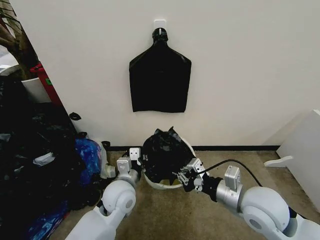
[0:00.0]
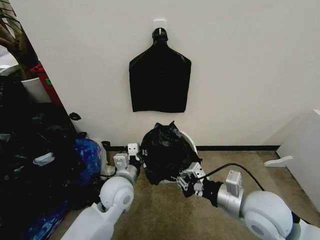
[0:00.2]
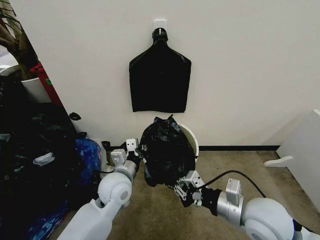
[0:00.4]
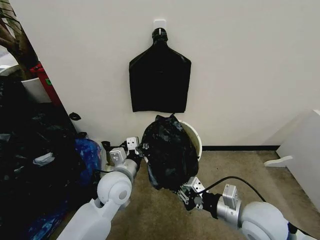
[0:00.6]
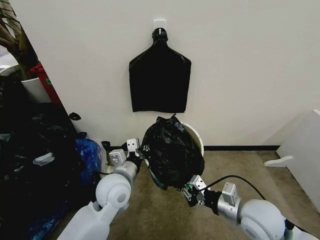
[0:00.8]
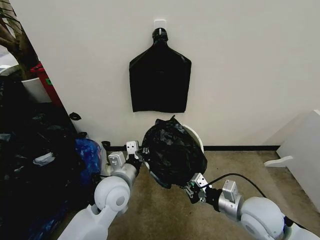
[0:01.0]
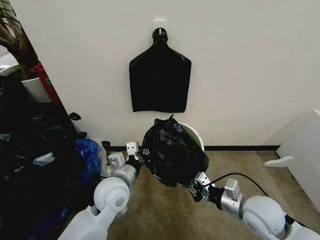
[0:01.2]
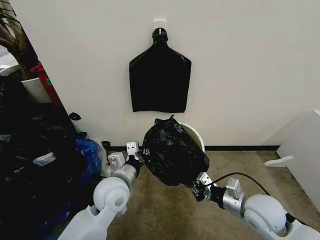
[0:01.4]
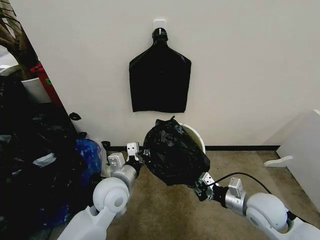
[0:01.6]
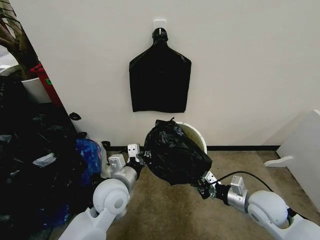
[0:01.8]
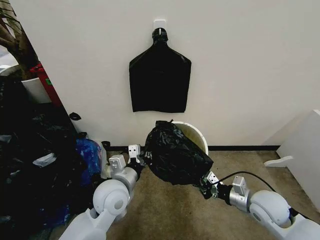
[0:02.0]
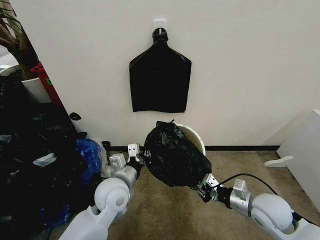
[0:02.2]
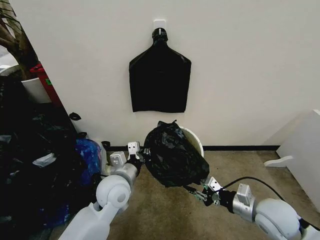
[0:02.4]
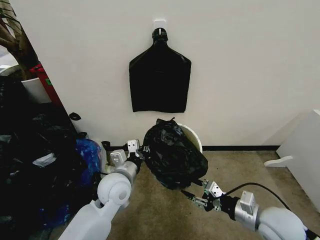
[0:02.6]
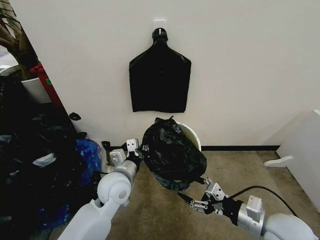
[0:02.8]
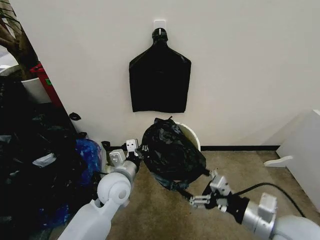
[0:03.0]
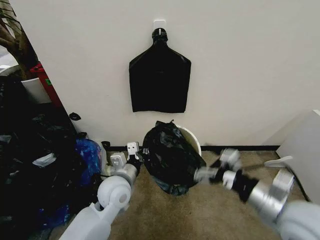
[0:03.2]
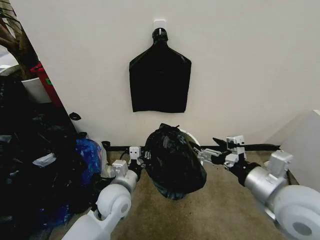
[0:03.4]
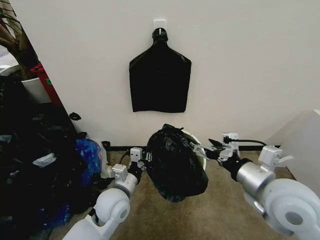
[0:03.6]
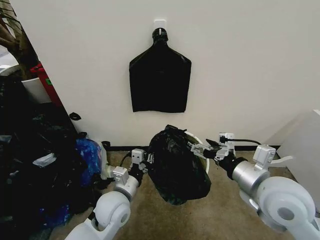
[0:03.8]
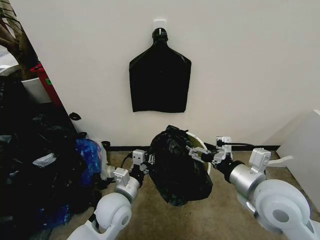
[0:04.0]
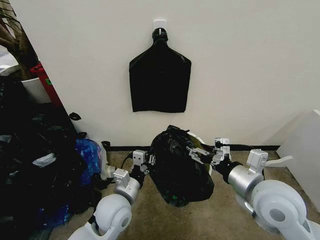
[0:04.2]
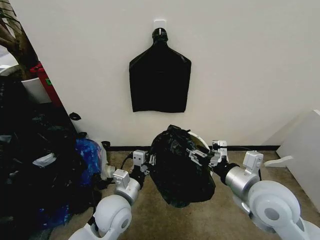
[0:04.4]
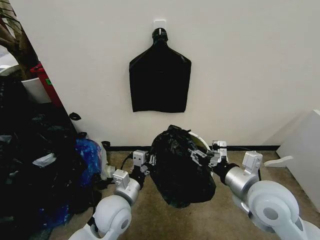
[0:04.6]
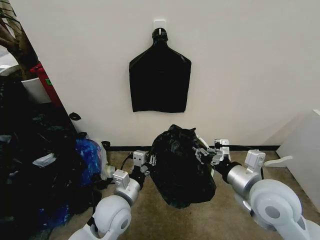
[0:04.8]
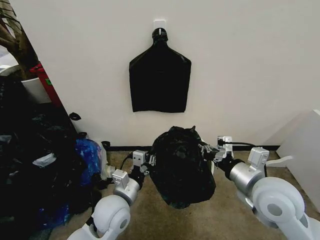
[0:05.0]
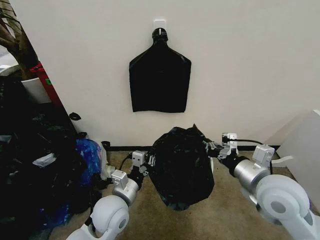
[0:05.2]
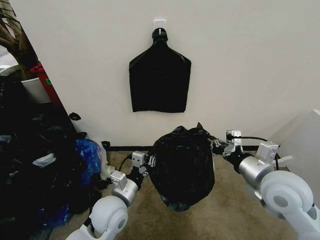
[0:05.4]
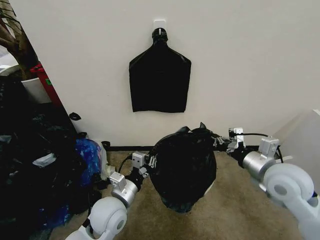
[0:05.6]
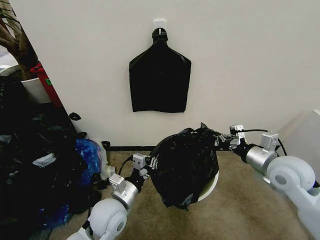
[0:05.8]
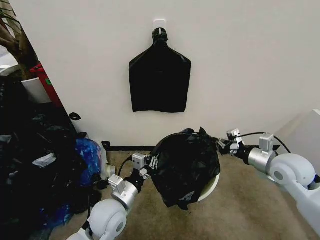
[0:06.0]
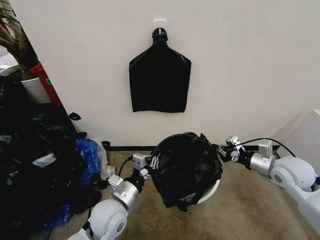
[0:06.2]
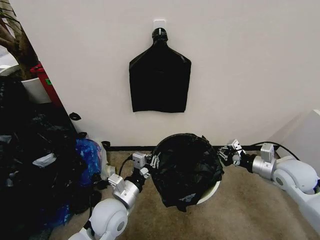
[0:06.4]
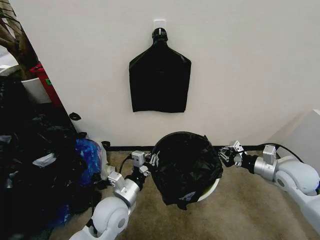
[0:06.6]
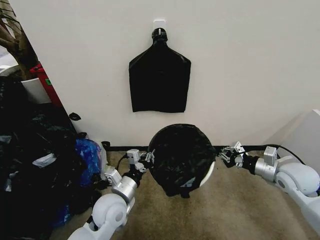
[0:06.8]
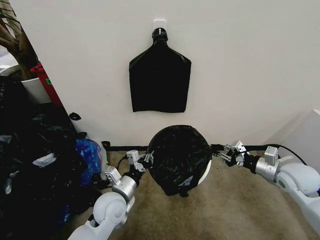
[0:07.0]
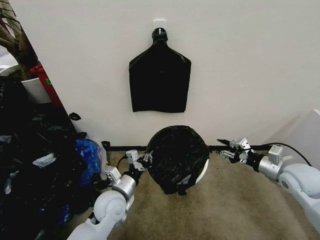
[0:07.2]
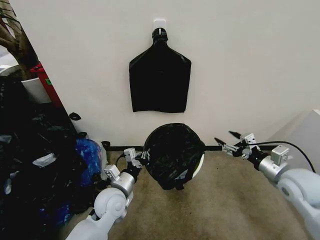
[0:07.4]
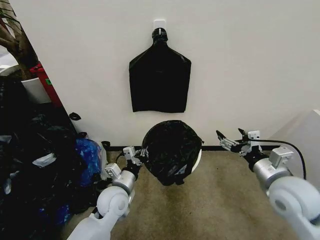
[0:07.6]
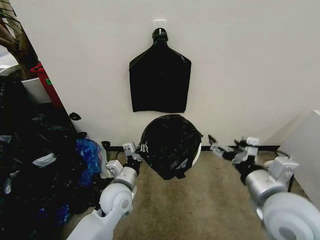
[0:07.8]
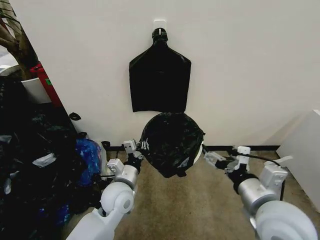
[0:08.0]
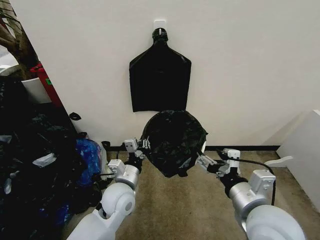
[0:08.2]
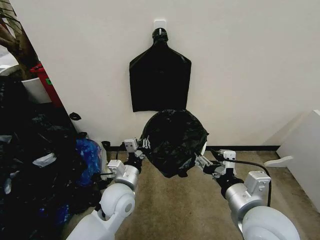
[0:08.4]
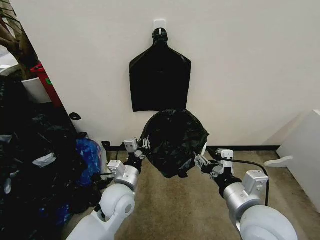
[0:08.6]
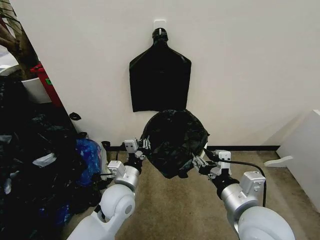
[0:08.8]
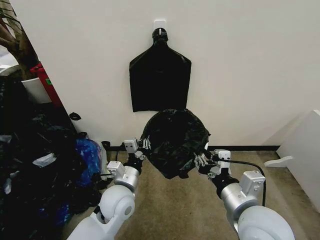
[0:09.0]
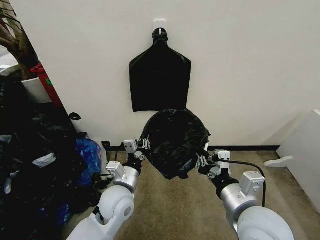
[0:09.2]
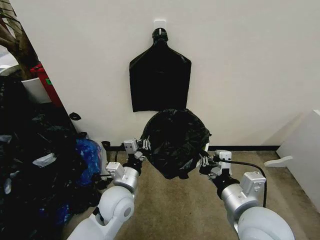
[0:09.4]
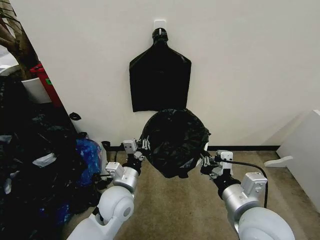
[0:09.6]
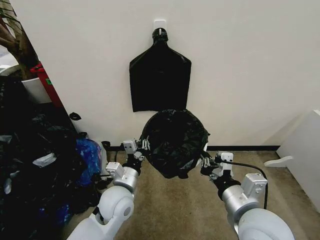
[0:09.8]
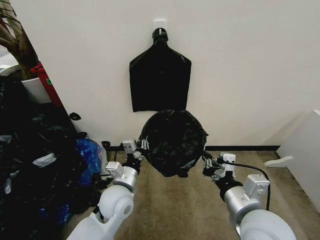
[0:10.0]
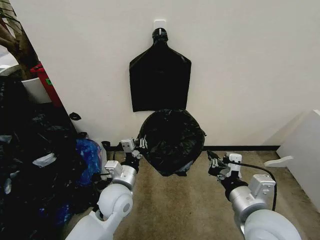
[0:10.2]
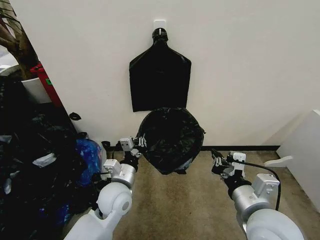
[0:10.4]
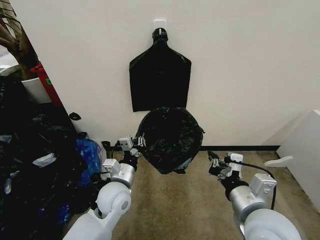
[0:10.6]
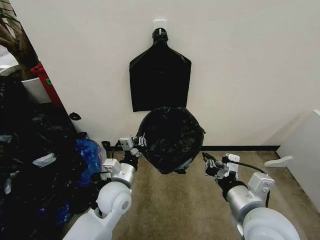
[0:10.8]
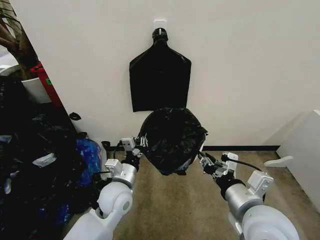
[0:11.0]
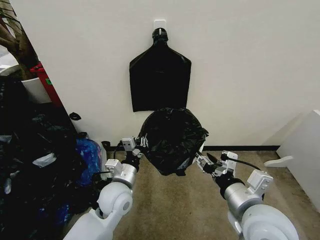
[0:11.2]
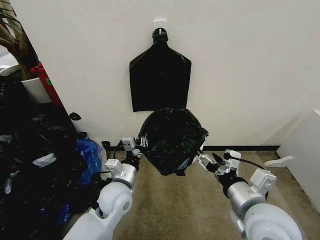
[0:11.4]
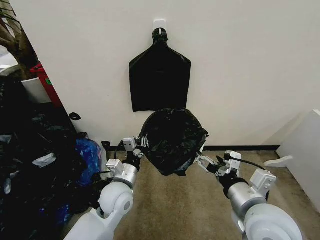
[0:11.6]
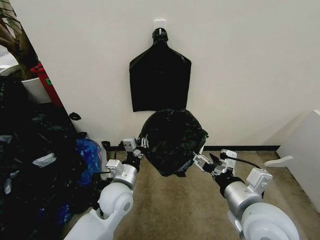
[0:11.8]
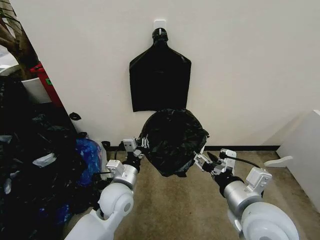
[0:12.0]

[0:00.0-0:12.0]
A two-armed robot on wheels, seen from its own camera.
Task of the whole recording: Place the garbage bag over the trash bin.
0:00.0 to 0:01.6: The right gripper moves downward and to the right, about 10 cm.
0:01.6 to 0:03.0: The right gripper heads upward and backward, covering approximately 10 cm, and opens up.
0:03.0 to 0:04.4: The left gripper shifts some 5 cm backward. Meanwhile the right gripper moves forward, about 5 cm.
0:04.4 to 0:06.0: The right gripper moves to the right and forward, some 15 cm, and closes its fingers.
0:06.0 to 0:07.6: The left gripper is displaced forward by approximately 5 cm. Meanwhile the right gripper heads backward and to the left, covering some 10 cm, and opens its fingers.
0:07.6 to 0:09.0: The left gripper ends up approximately 5 cm from where it was; the right gripper travels to the left and backward by approximately 15 cm, and closes.
0:09.0 to 0:10.4: The grippers move only a little.
0:10.4 to 0:12.0: The right gripper opens up.

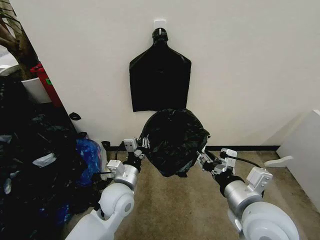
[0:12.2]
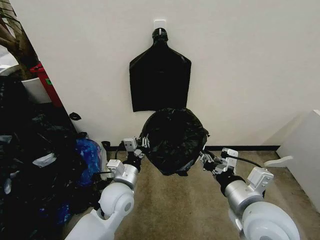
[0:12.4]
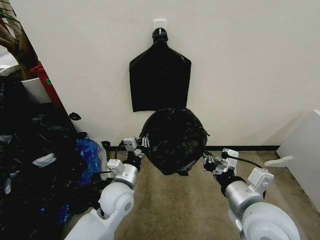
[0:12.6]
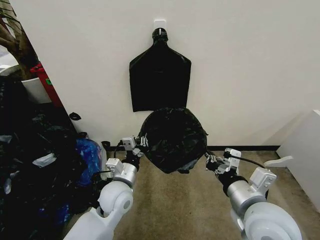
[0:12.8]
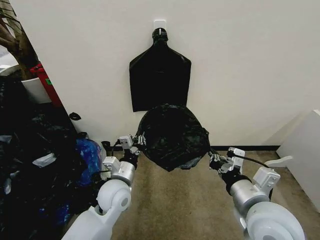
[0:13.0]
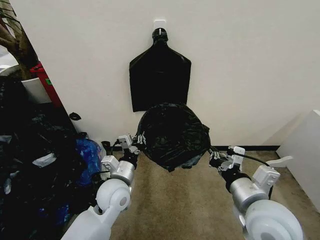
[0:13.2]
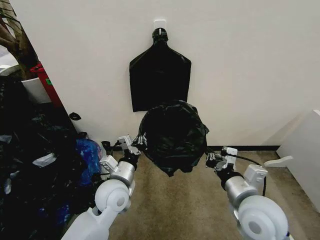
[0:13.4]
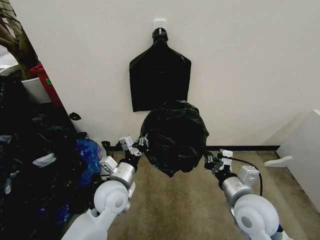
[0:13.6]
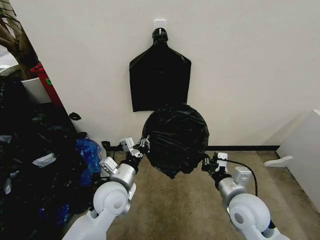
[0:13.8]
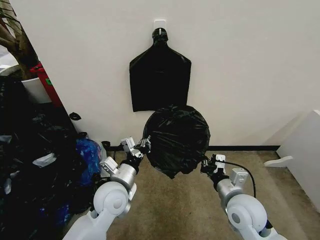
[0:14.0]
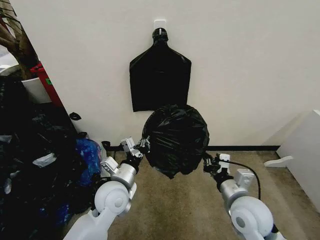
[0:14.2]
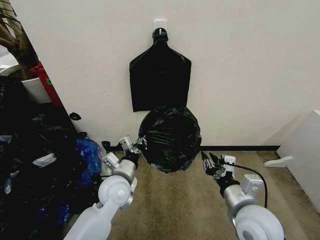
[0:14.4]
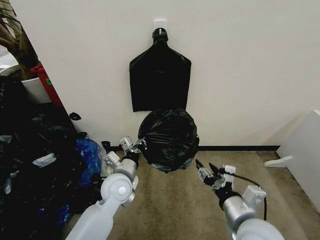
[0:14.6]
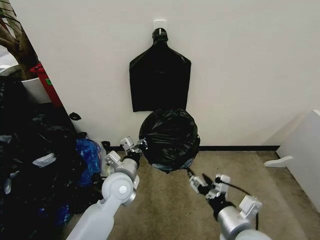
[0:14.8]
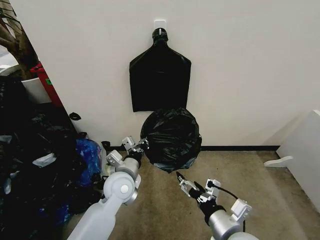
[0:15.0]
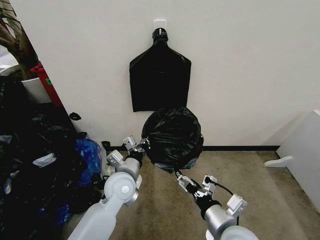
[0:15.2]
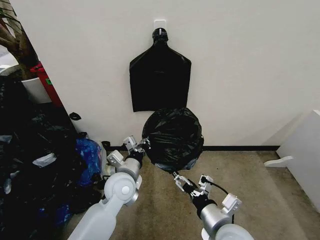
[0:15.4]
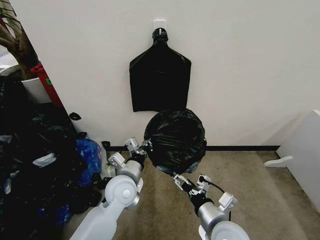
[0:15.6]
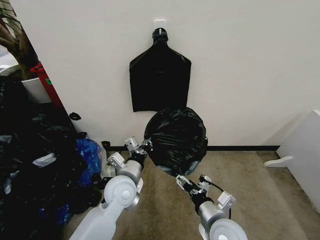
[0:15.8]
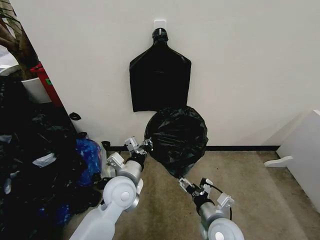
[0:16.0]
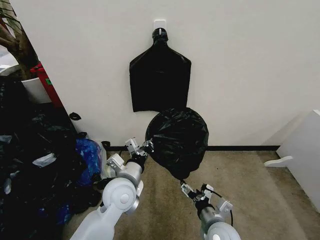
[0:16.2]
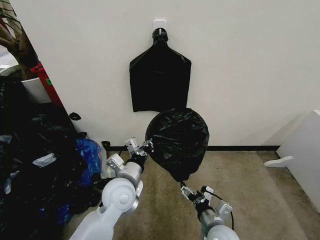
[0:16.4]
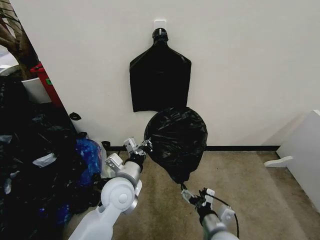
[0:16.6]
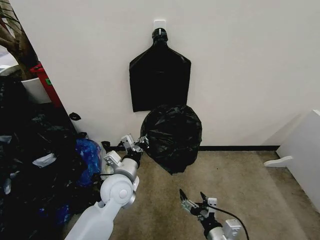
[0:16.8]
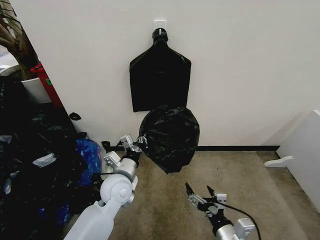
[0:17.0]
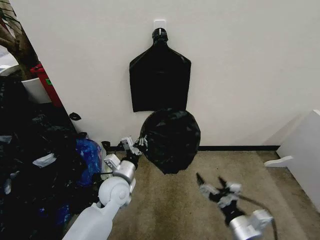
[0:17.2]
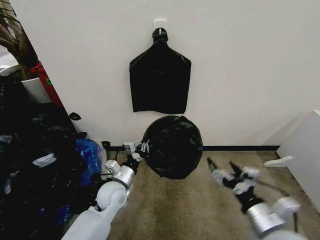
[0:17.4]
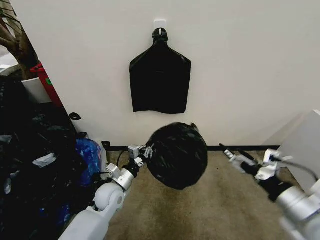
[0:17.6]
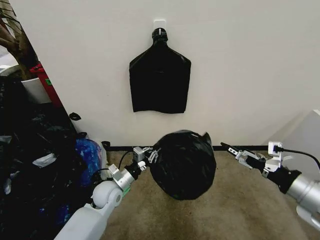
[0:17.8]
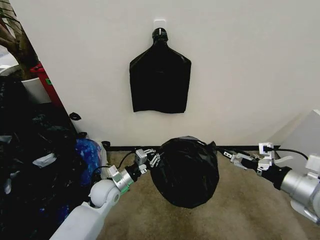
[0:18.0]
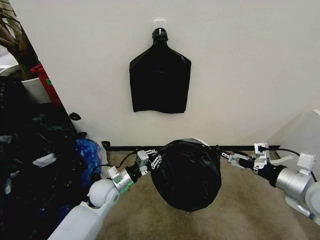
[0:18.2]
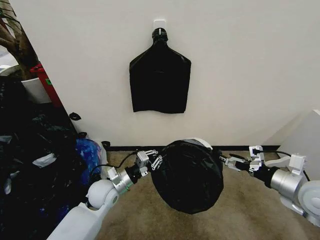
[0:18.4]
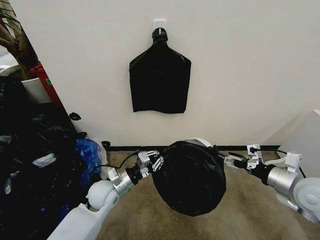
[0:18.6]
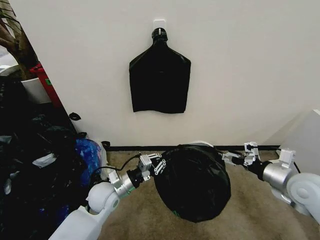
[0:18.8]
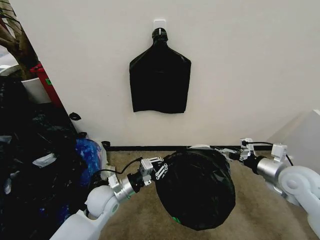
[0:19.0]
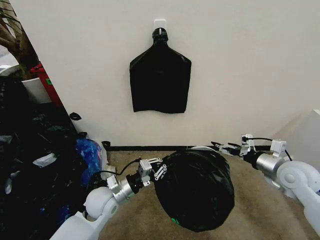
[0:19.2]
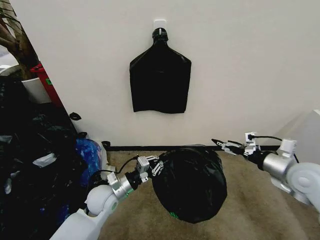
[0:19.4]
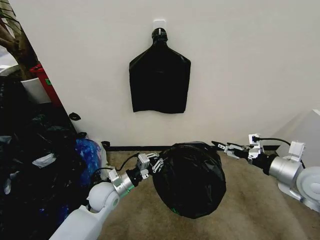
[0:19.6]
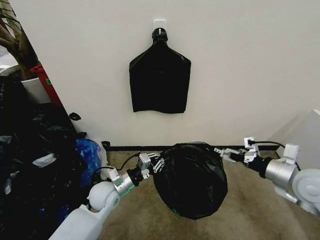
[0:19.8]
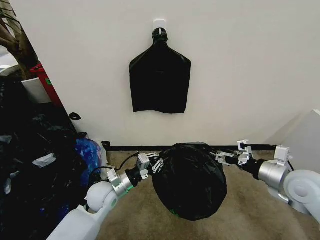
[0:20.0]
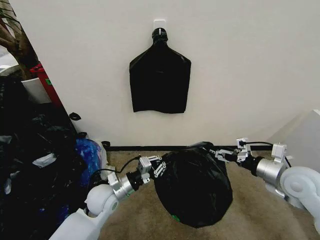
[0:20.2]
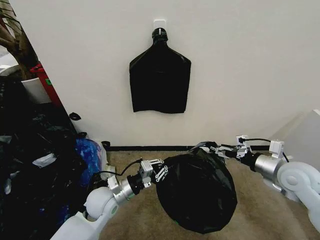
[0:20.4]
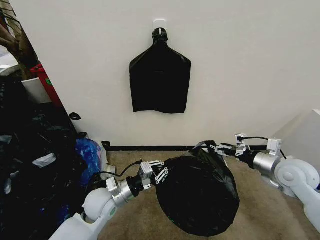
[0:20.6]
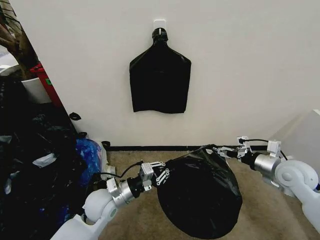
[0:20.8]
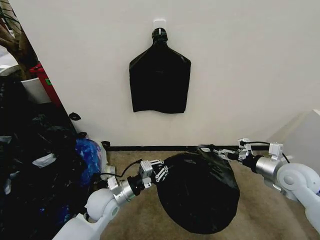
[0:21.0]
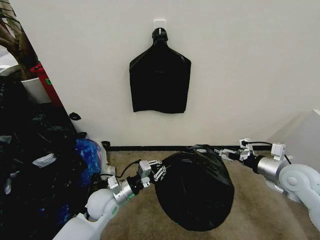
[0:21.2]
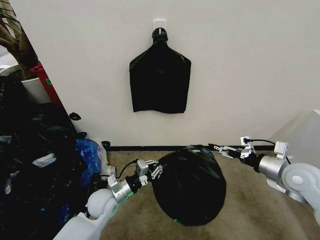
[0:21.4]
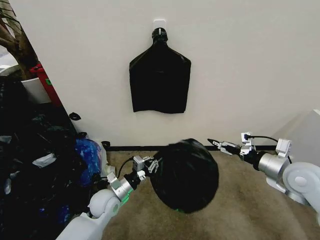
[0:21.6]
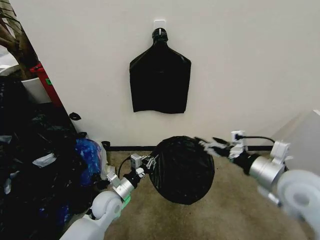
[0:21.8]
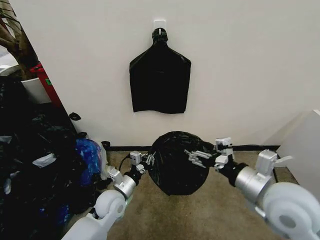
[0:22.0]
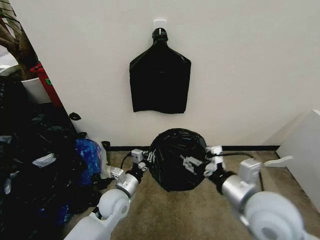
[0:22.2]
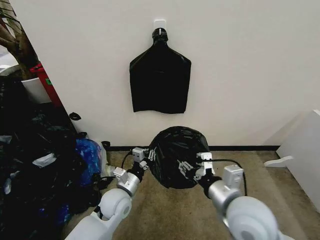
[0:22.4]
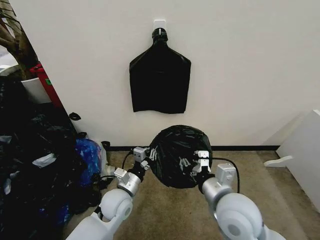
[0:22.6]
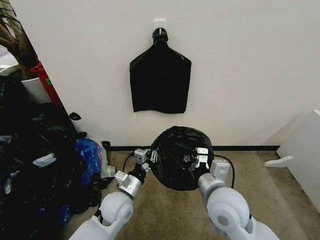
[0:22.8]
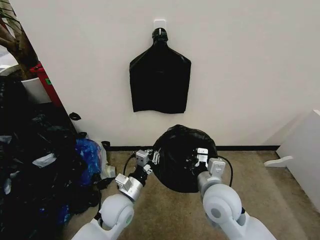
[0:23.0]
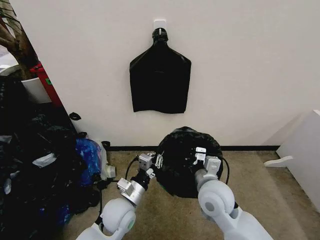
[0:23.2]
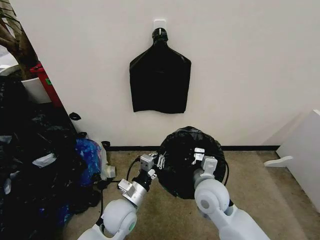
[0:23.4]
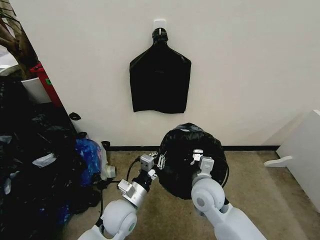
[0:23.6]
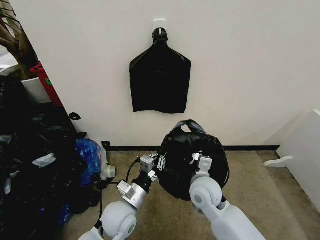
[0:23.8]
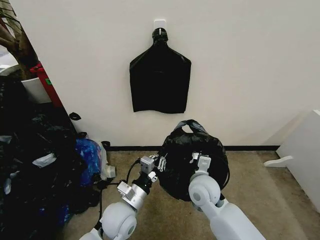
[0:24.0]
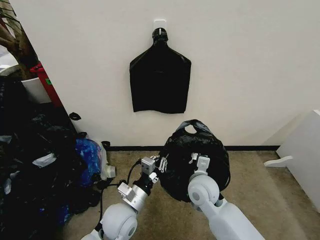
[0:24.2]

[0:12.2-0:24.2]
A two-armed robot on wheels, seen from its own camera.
Task of the whole recording: Place the garbage bag over the trash bin.
0:12.2 to 0:13.8: The right gripper goes about 10 cm downward and forward, and closes its fingers.
0:13.8 to 0:15.2: The right gripper travels backward and to the left by some 10 cm, and opens up.
0:15.2 to 0:16.6: The right gripper goes roughly 10 cm downward.
0:16.6 to 0:18.2: The right gripper shifts roughly 30 cm to the right and upward, while the left gripper is displaced downward and to the left by approximately 10 cm.
0:19.8 to 0:21.2: The right gripper ends up approximately 5 cm from where it was.
0:21.2 to 0:22.6: The right gripper is displaced to the left and backward by approximately 25 cm, and closes up.
0:22.6 to 0:24.2: The right gripper shifts about 15 cm forward and downward. The left gripper shifts roughly 5 cm backward.
